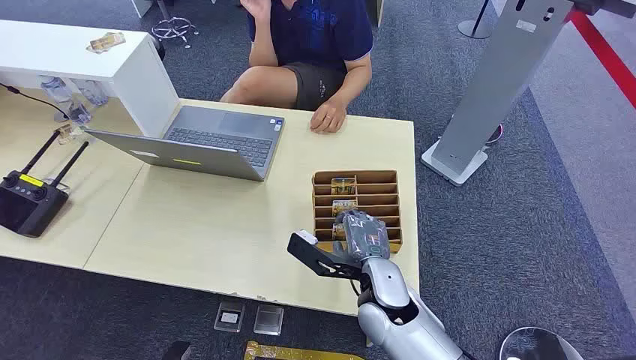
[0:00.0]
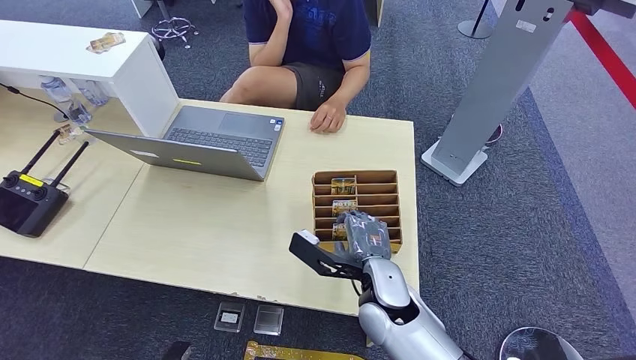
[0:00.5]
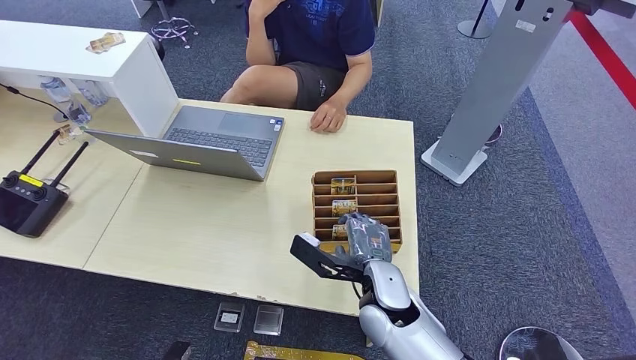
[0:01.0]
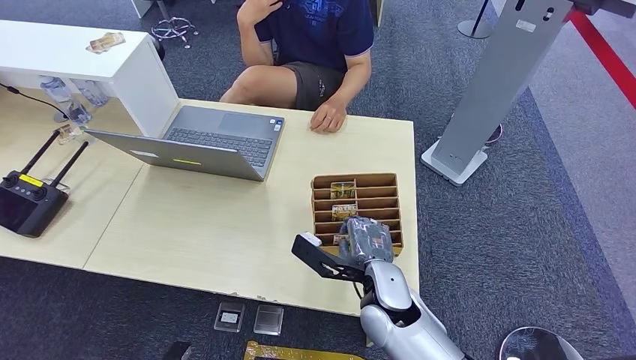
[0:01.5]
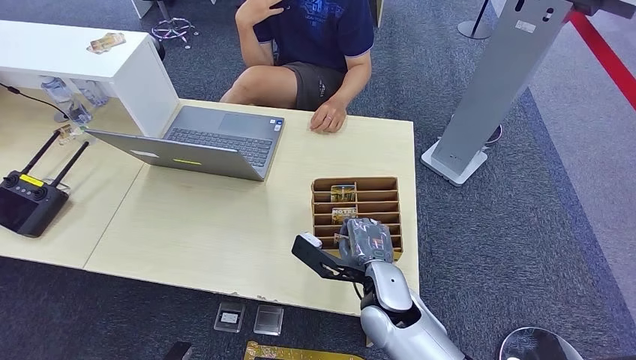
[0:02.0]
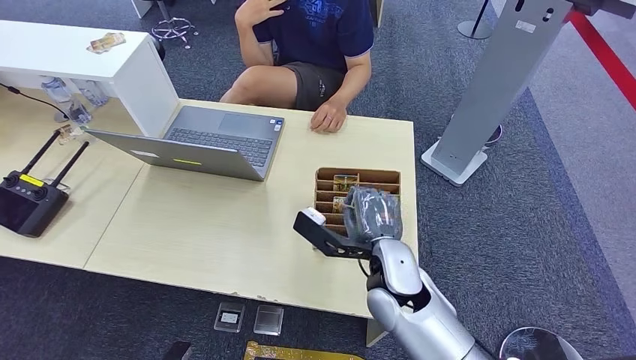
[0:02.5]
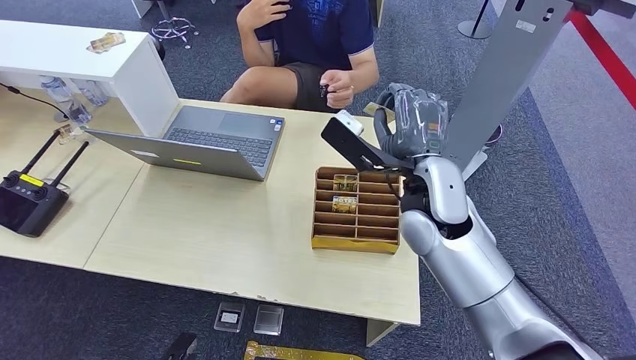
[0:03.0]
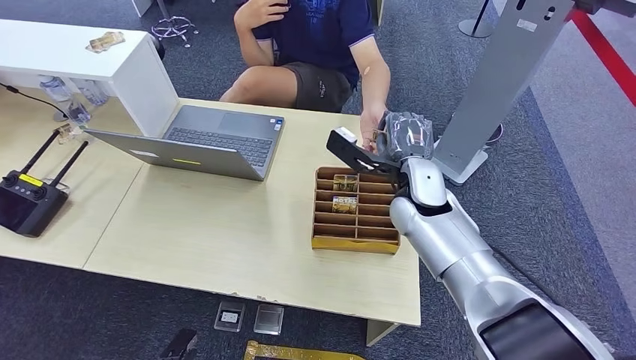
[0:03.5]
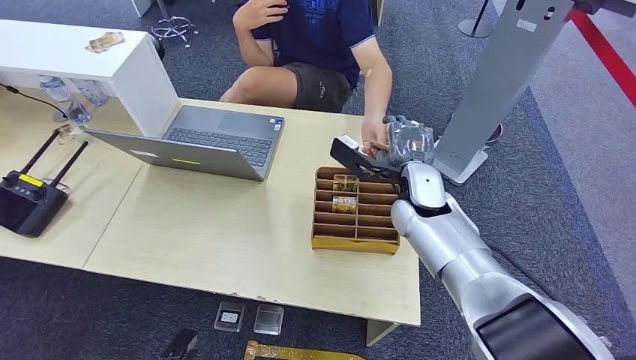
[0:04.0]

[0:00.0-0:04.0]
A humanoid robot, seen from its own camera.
Step, 0:00.0 to 0:02.5: Pick up the room card from the card holder.
Step, 0:03.5 to 0:04.0: Hand the room card to the target.
0:02.0 to 0:04.0: The right hand shifts approximately 15 cm forward and upward.

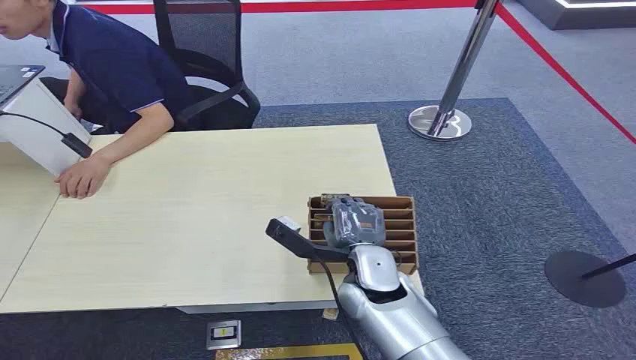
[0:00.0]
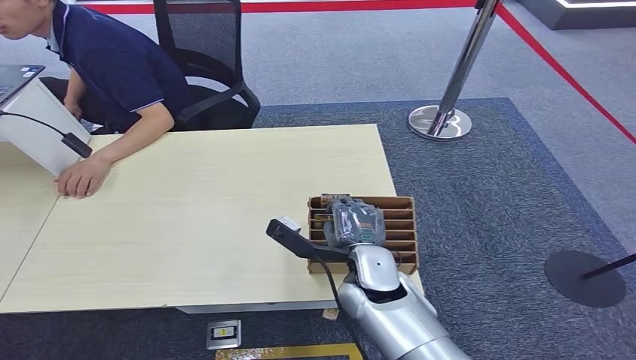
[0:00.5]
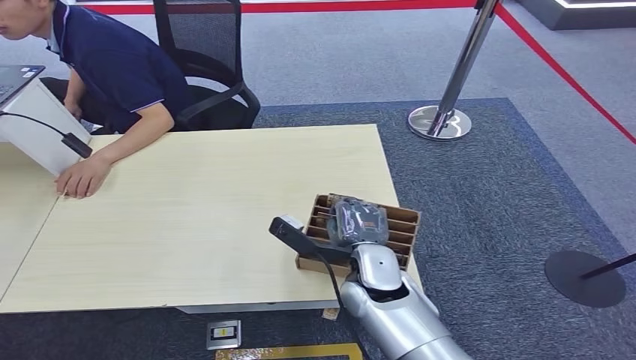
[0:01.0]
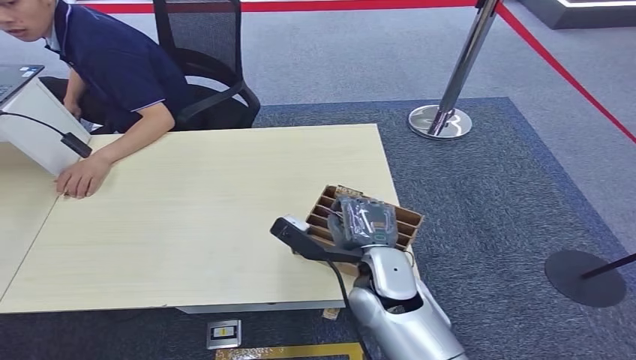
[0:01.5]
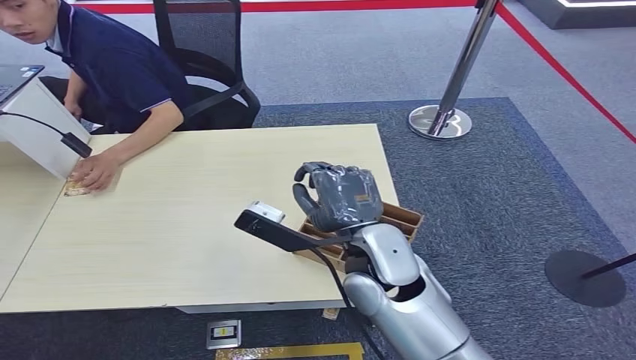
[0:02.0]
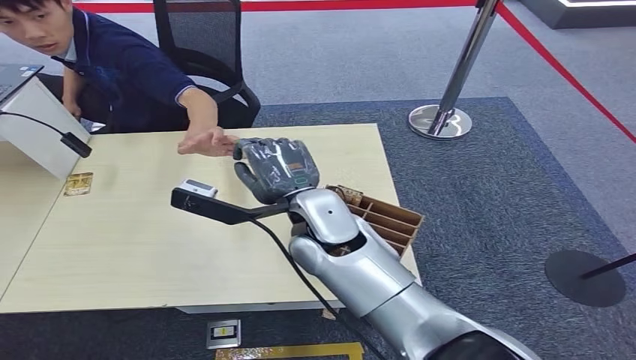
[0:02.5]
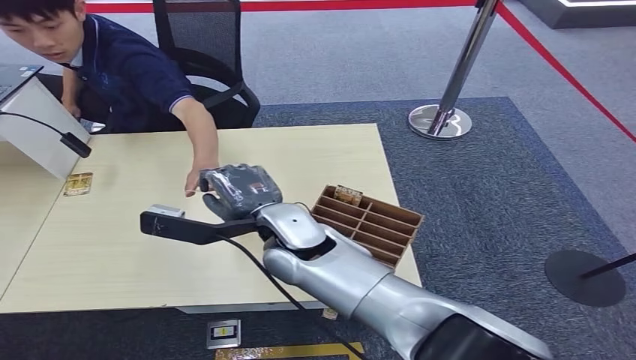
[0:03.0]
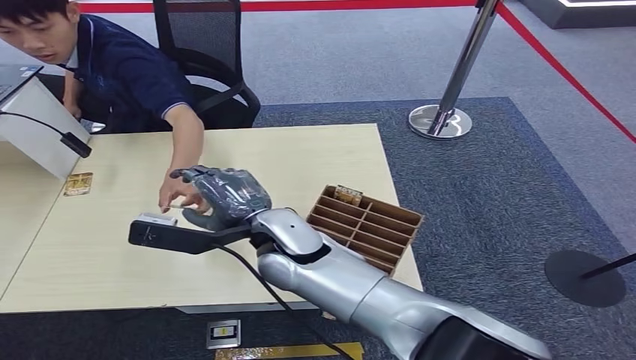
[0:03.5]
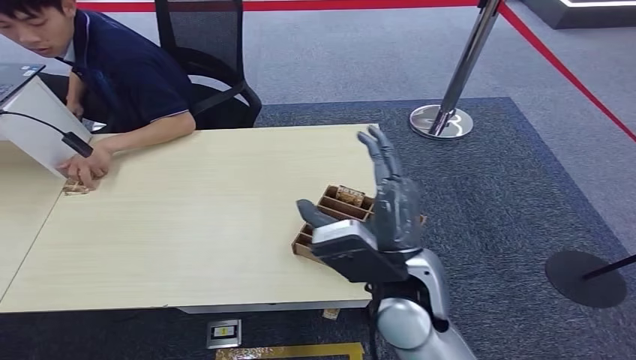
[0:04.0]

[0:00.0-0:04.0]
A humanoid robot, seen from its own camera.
Step, 0:00.0 to 0:02.0: Pick up the room card from the card holder.
Step, 0:02.5 to 0:04.0: Hand the room card to the target.
0:02.0 to 0:04.0: The right hand moves about 10 cm to the left and comes back.
